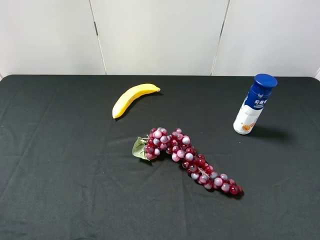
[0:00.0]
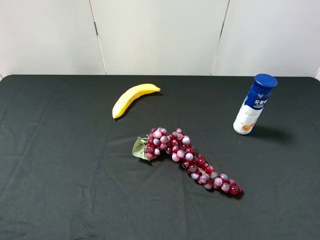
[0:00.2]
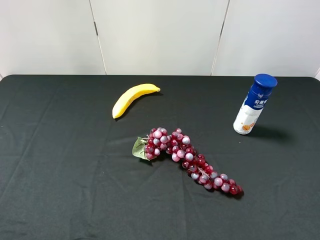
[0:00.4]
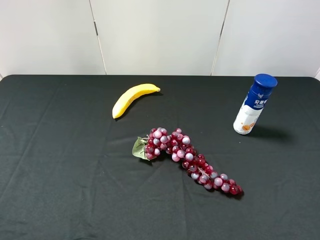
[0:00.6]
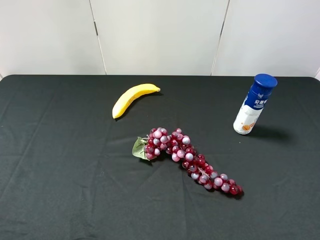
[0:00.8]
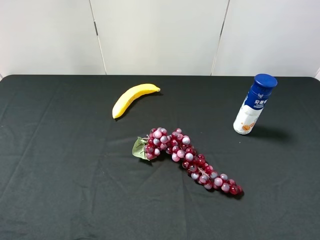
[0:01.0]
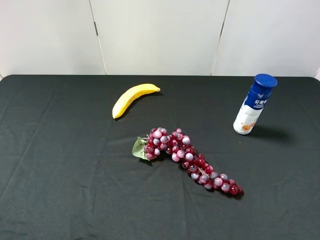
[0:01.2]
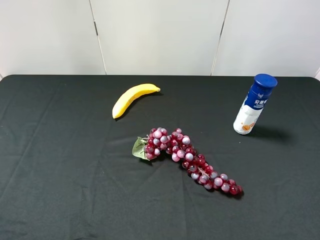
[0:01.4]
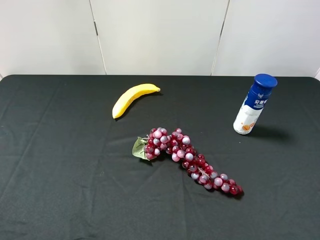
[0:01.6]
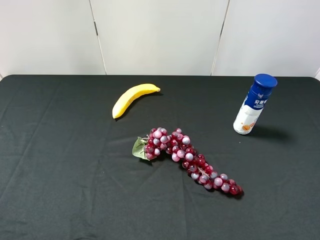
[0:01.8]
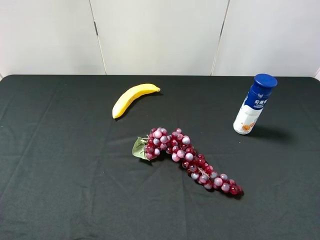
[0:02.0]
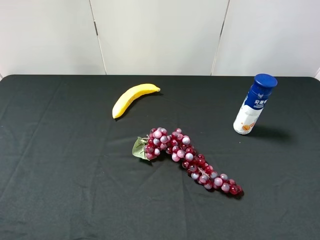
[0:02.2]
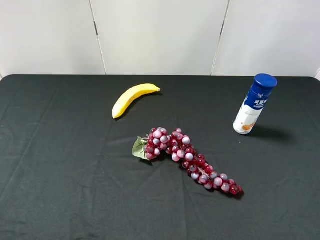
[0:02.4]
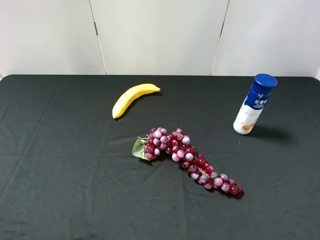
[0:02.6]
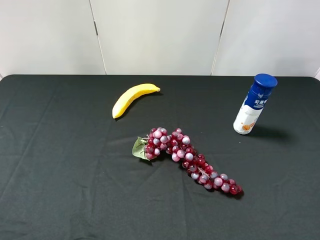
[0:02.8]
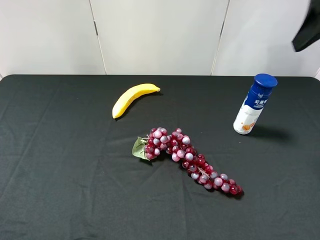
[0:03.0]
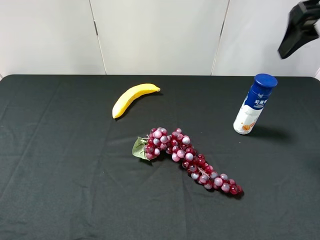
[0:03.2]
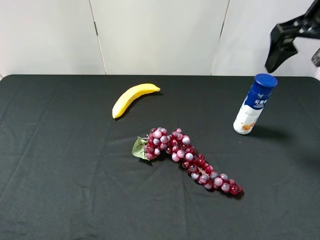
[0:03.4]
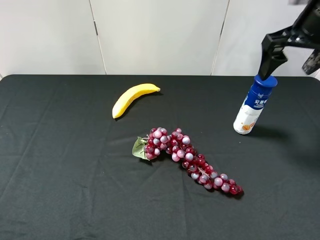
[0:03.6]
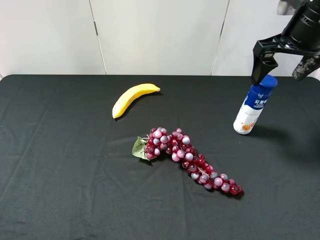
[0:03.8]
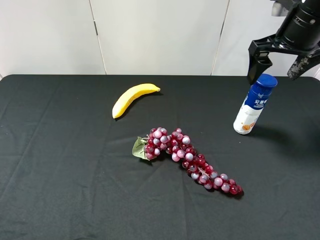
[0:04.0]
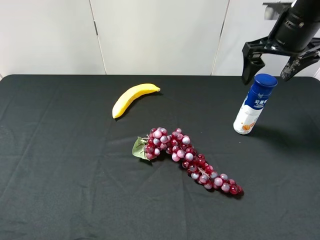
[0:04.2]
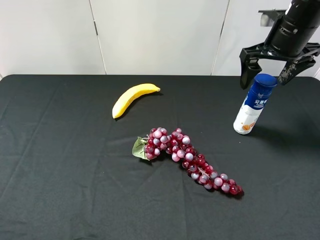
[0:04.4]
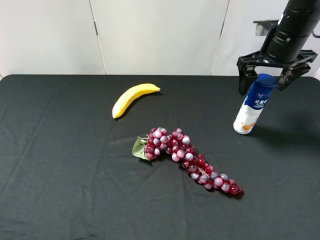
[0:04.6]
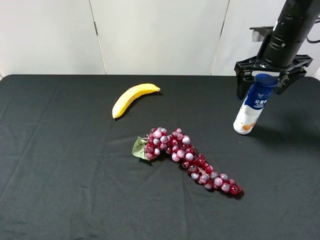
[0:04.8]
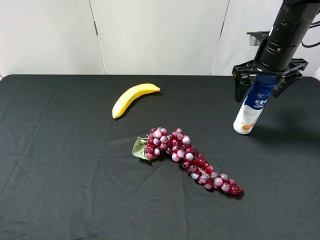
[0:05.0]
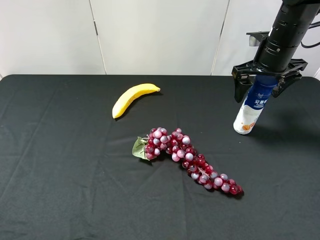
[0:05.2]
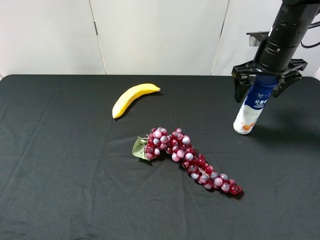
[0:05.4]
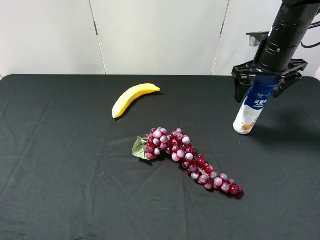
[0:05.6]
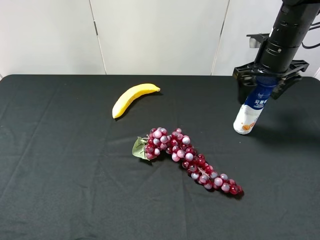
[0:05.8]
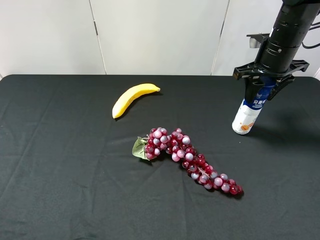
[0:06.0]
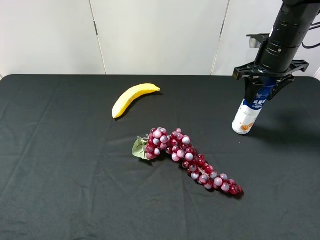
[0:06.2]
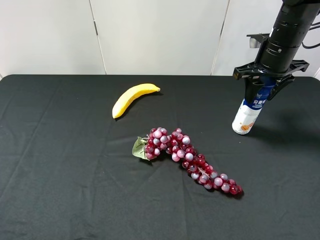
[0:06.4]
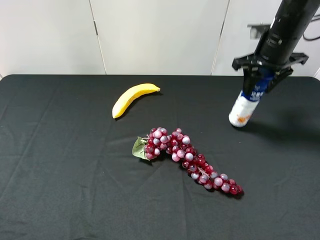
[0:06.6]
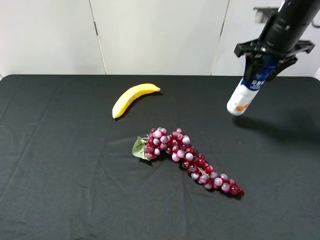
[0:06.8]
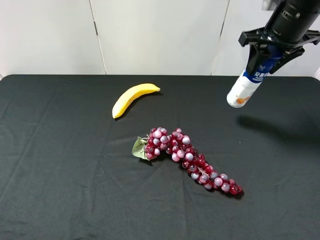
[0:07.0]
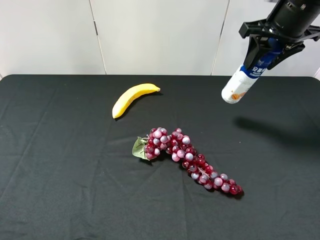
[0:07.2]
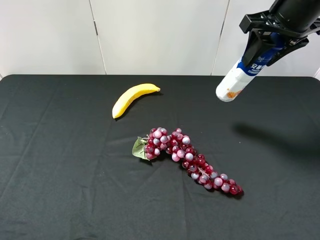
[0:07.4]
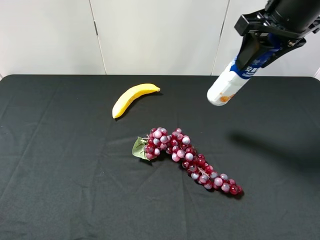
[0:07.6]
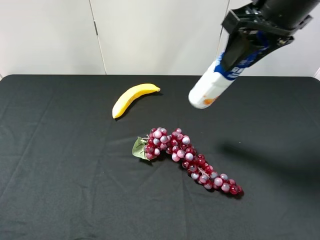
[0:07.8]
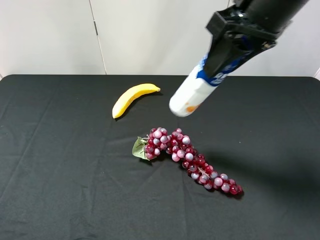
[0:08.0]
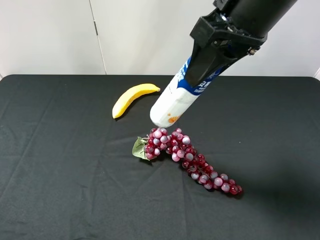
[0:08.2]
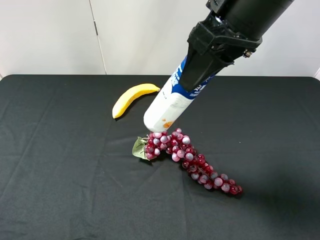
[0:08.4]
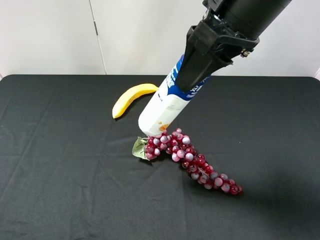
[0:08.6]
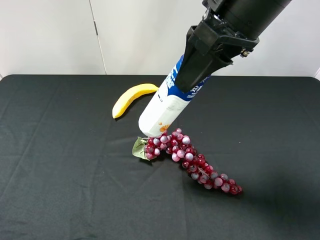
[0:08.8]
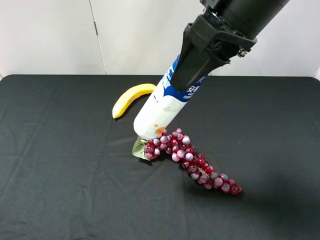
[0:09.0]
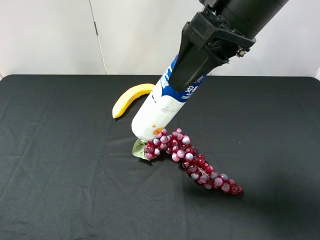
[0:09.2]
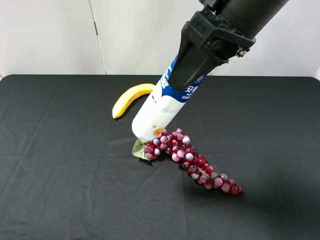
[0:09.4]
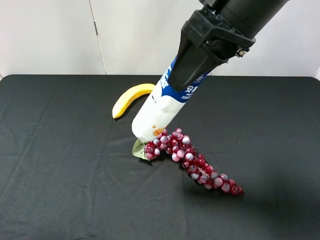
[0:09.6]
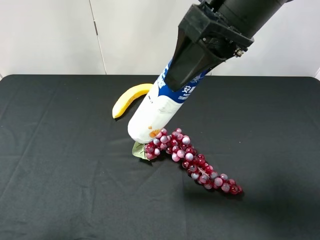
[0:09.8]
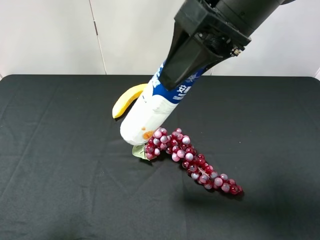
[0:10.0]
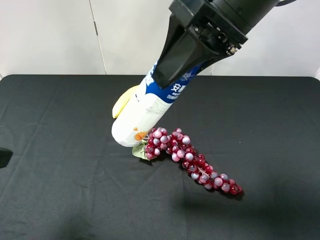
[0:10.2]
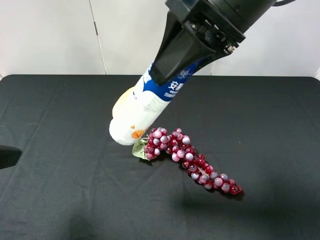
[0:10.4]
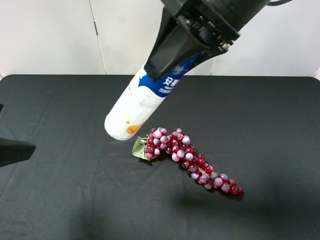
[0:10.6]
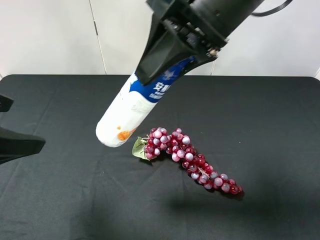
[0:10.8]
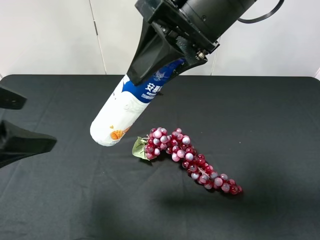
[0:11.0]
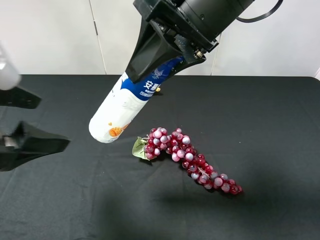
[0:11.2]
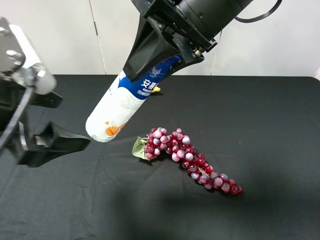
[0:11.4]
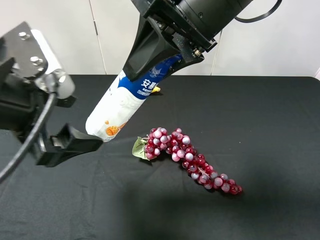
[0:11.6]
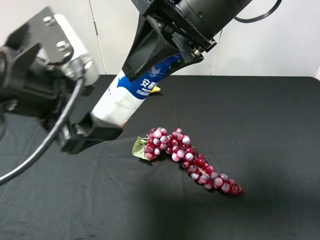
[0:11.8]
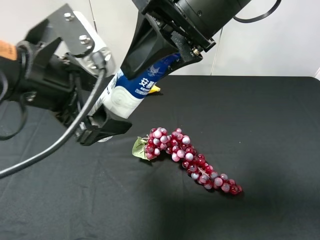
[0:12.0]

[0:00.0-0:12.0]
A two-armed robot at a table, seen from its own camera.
Task of the whole recording: use the right gripper to pick up the item and transfer it from the right gripper to the left gripper.
Step, 0:00.0 to 0:06.0: Use the right gripper to grab the yogurt on the right side of the table.
0:00.0 to 0:01.6: The two grippers keep their place.
0:01.6 to 0:03.0: The right gripper shifts roughly 25 cm forward and upward.
0:03.0 to 0:04.4: The right gripper moves downward and forward, some 15 cm.
0:04.4 to 0:06.0: The right gripper closes.
0:06.0 to 0:07.6: The right gripper shifts about 15 cm upward, backward and to the left.
0:07.6 to 0:09.0: The right gripper moves to the left and backward, some 10 cm.
0:09.0 to 0:10.4: The left gripper heads forward, covering approximately 10 cm.
0:10.4 to 0:12.0: The left gripper shifts about 15 cm to the right and forward.

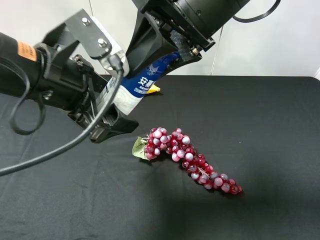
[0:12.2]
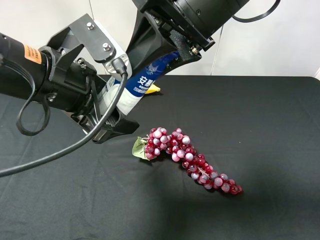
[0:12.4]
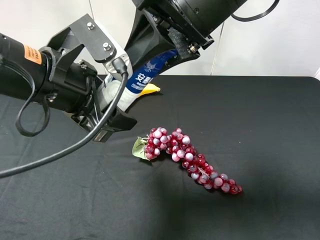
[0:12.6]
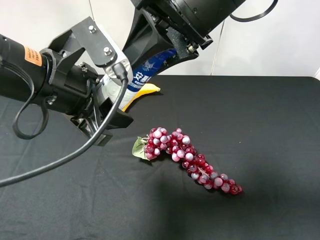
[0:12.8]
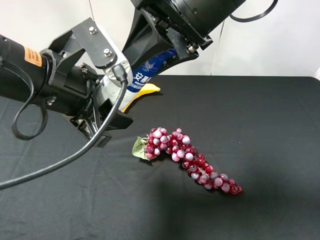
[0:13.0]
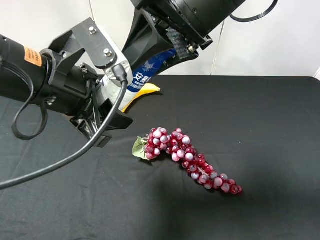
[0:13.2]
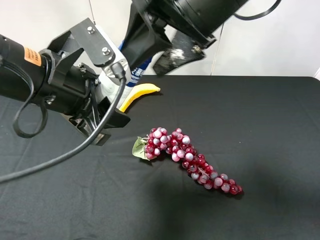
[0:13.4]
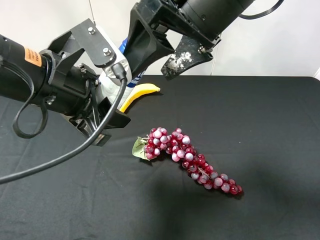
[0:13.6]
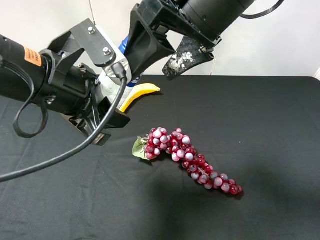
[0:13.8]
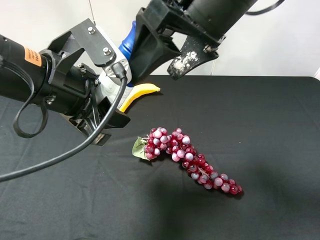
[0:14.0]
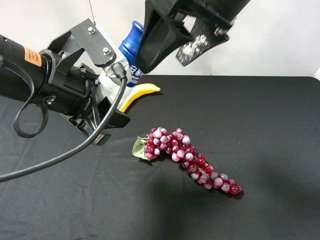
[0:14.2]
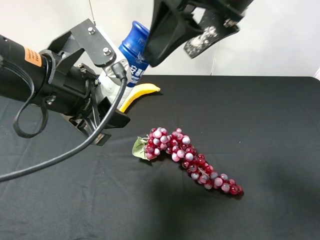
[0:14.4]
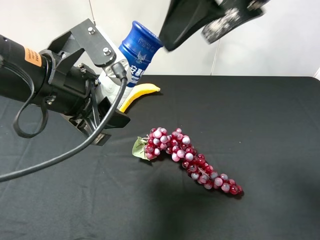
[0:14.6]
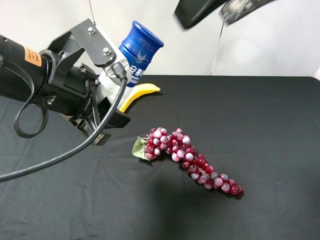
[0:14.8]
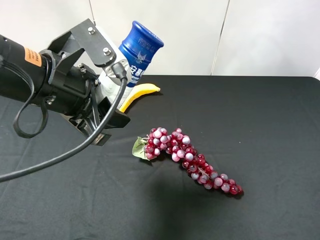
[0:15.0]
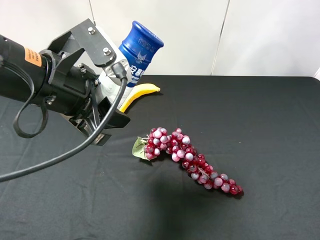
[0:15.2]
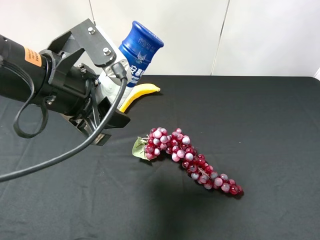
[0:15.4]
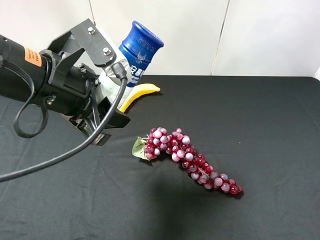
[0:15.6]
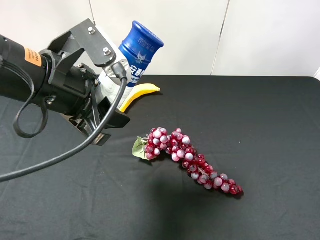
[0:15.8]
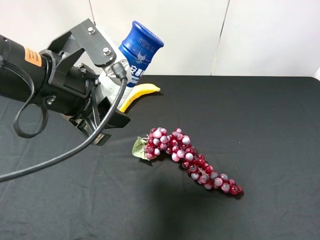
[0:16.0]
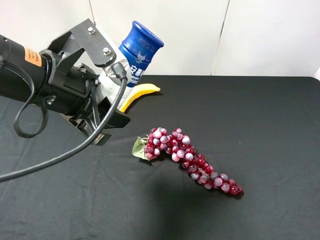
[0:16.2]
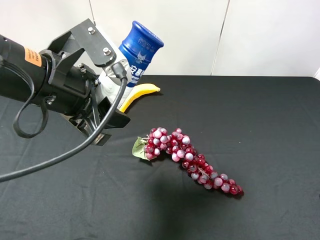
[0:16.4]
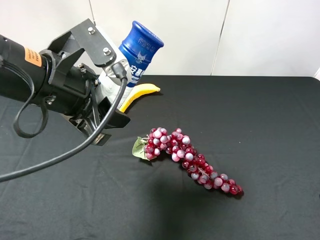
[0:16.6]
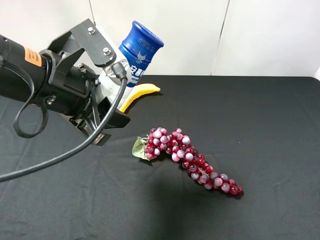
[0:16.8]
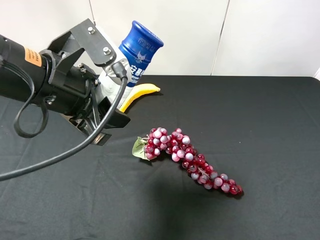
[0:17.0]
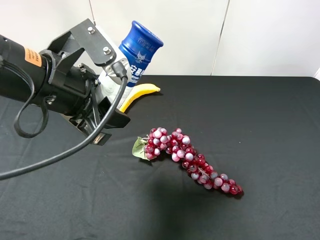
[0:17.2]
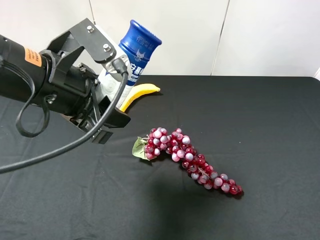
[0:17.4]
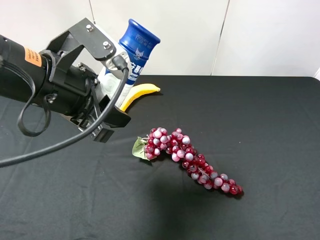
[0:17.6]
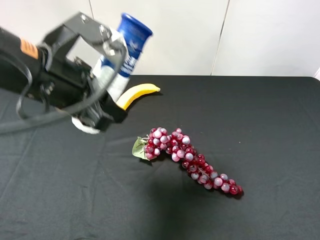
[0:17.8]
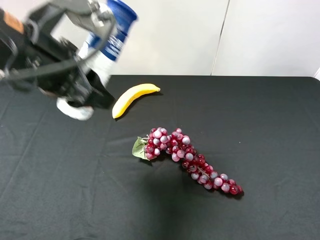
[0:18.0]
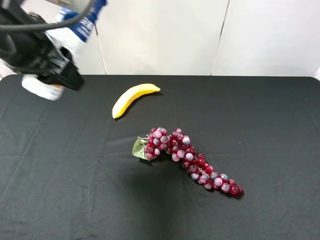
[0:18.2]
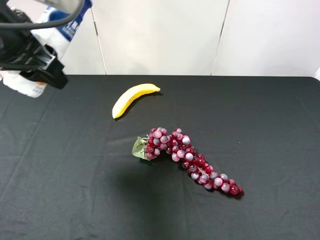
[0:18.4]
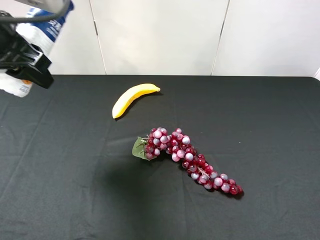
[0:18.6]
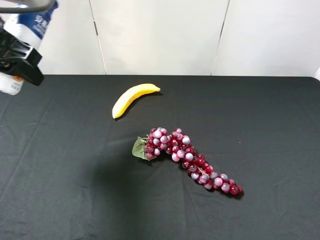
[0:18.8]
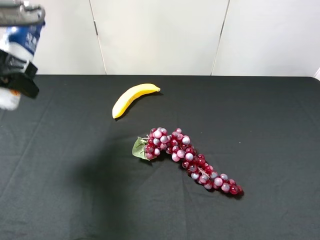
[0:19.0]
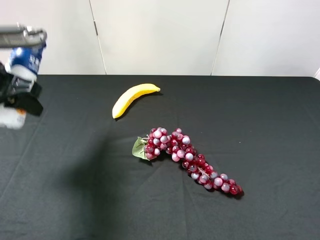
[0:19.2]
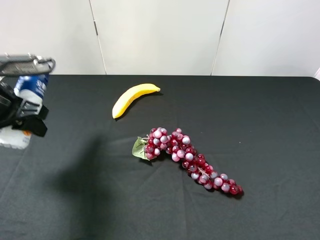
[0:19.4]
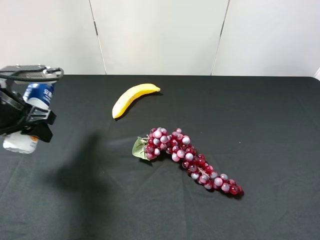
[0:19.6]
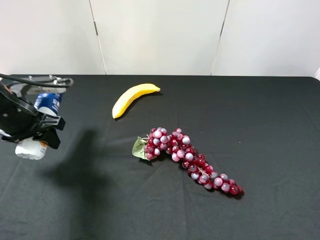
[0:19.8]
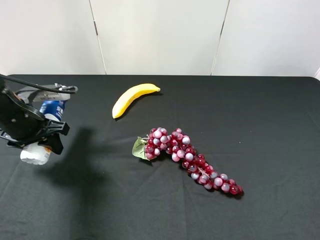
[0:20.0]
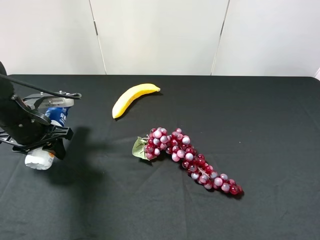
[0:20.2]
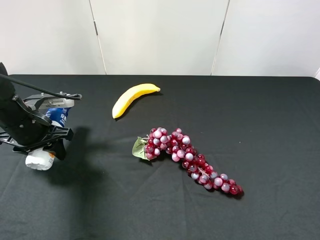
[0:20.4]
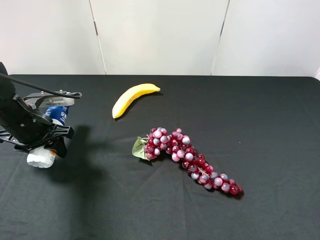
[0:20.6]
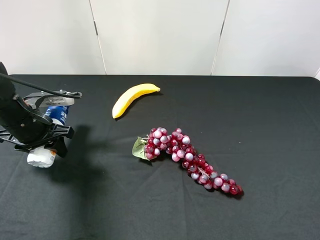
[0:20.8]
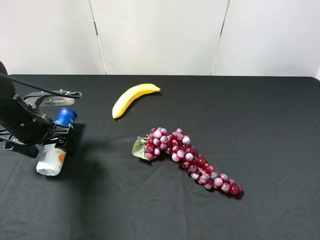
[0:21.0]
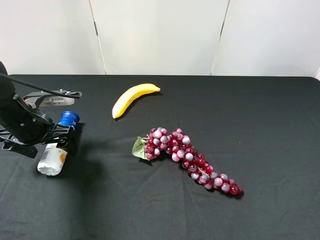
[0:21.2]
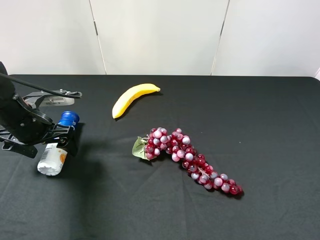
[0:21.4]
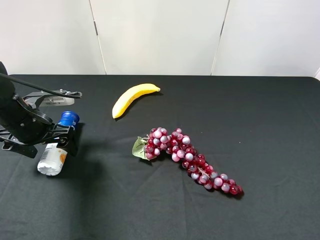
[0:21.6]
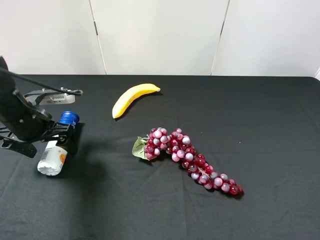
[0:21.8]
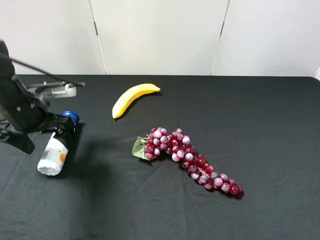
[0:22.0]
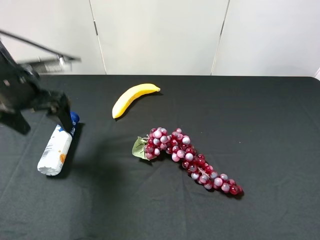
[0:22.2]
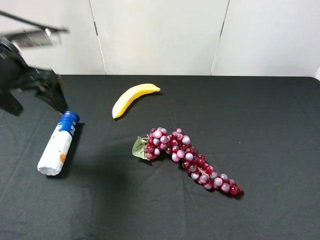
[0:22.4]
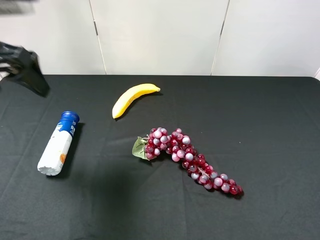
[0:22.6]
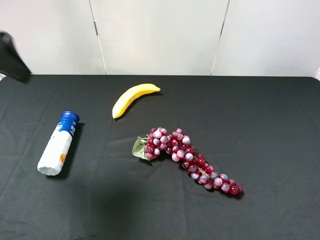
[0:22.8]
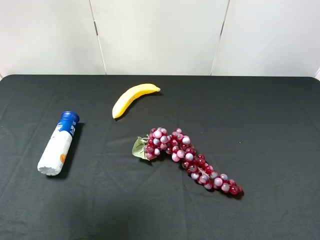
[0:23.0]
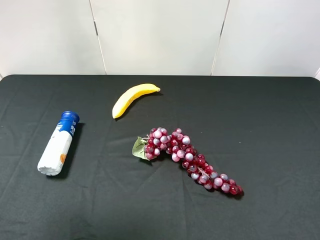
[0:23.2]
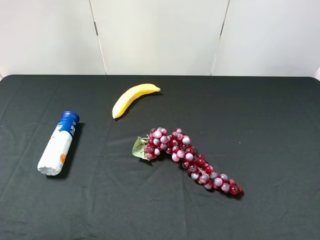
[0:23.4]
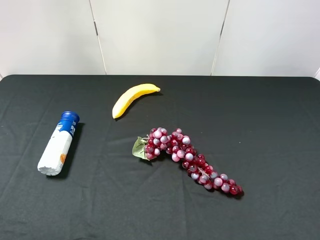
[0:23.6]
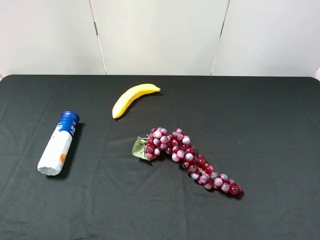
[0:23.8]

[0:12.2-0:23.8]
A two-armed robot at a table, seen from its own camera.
Task of the whole recording: use the right gripper to pick up the item and transfer it from the right gripper to the left gripper.
Step, 0:13.8 to 0:21.0: The left gripper places yogurt on the left side of the table.
0:12.2 to 0:13.6: The right gripper opens up. The left gripper closes.
0:13.6 to 0:15.0: The right gripper moves upward, to the right and backward, approximately 15 cm.
0:16.6 to 0:18.0: The left gripper ends up approximately 5 cm from where it was.
0:18.0 to 0:19.4: The left gripper heads to the left and downward, covering approximately 15 cm.
0:19.4 to 0:21.0: The left gripper shifts some 10 cm downward, and opens up.
0:21.0 to 0:22.4: The left gripper travels upward by about 15 cm.
0:22.4 to 0:23.8: The left gripper moves backward, approximately 25 cm.
